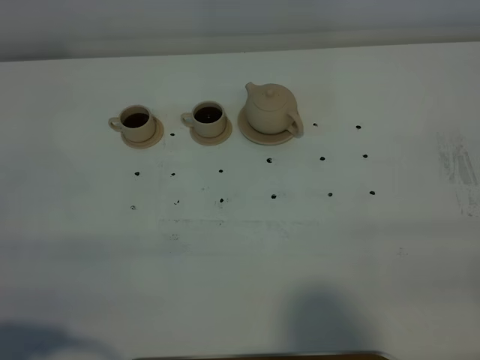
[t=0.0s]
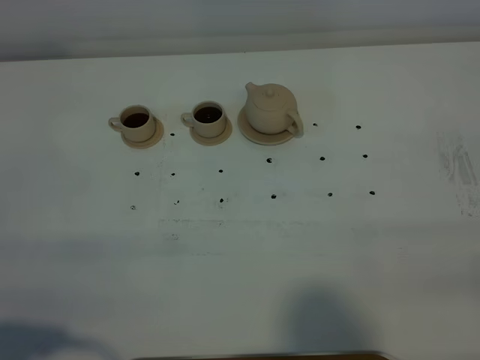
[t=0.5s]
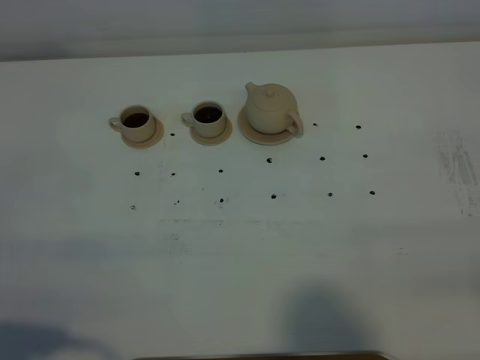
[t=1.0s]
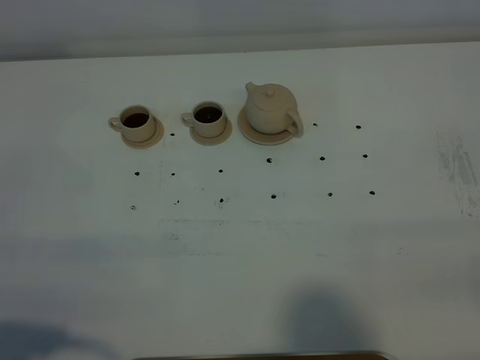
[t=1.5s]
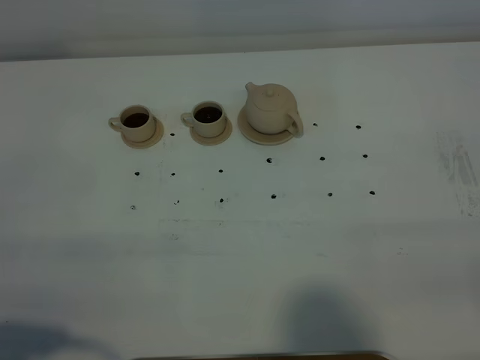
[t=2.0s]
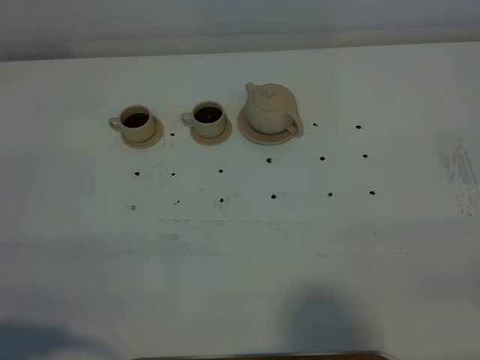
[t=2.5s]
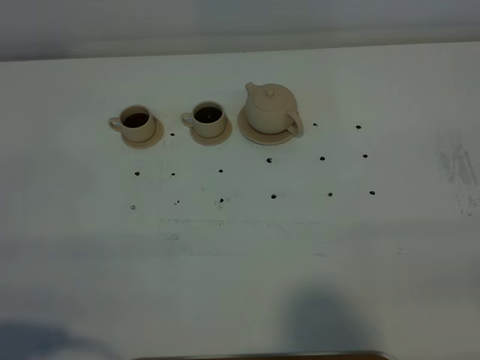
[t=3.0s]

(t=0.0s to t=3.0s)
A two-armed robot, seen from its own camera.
Task of the whole recording: grasp the brown teapot and pour the tea into the two brown teacups one by one, put the brown teapot back in its original place.
t=1.5s - t=3.0s: Both grippers stay put.

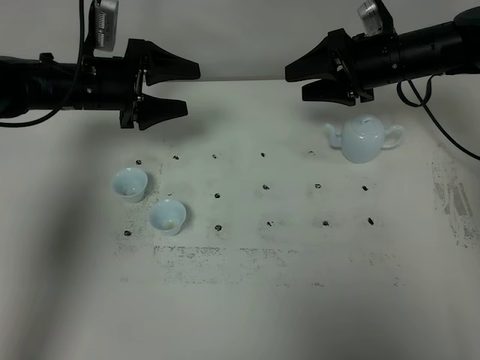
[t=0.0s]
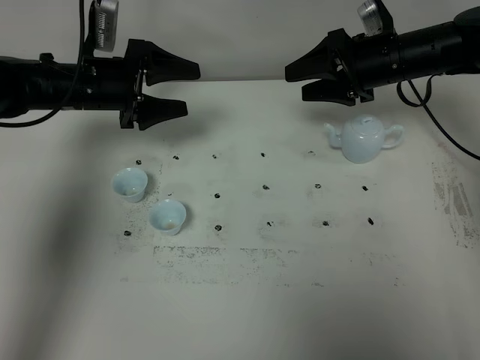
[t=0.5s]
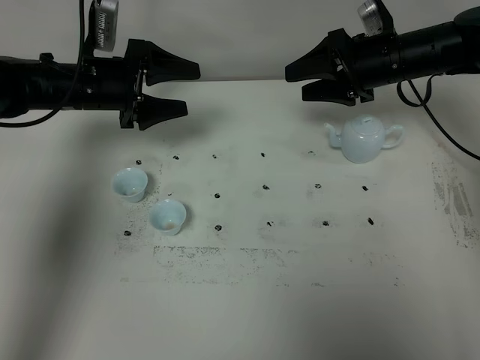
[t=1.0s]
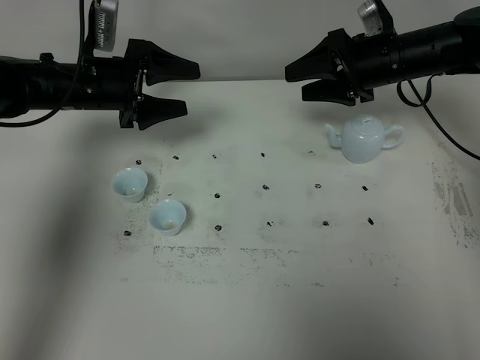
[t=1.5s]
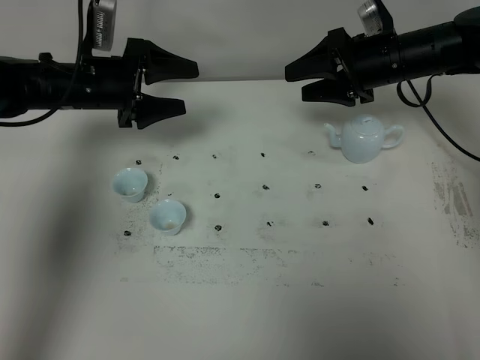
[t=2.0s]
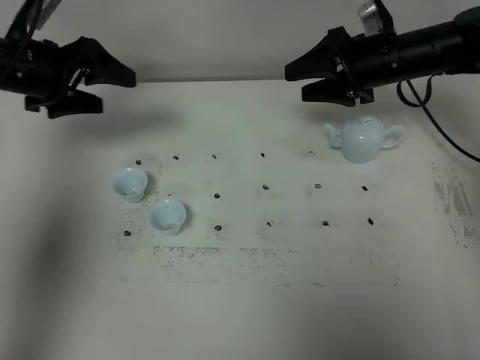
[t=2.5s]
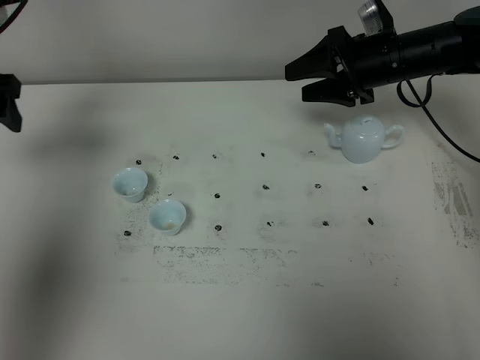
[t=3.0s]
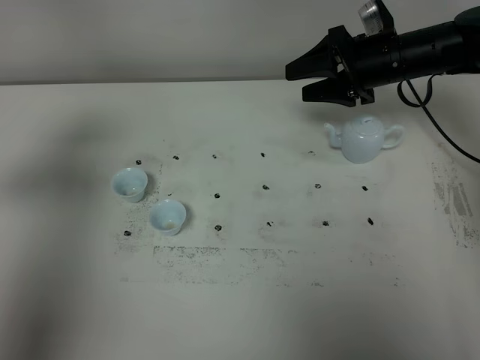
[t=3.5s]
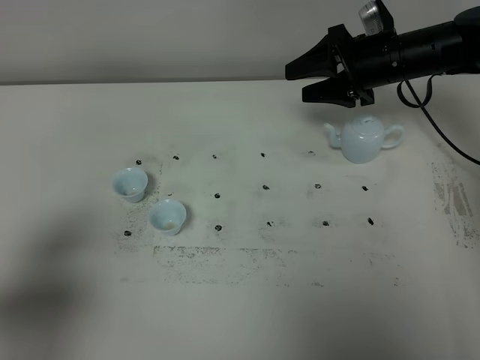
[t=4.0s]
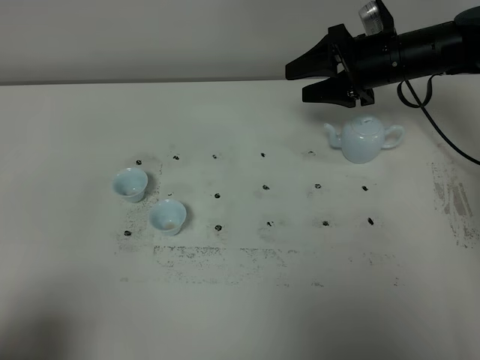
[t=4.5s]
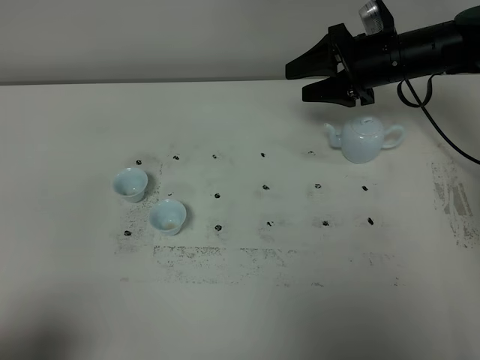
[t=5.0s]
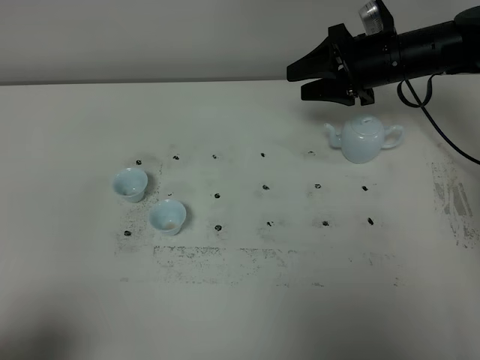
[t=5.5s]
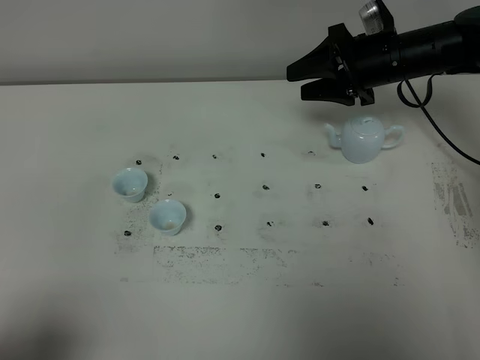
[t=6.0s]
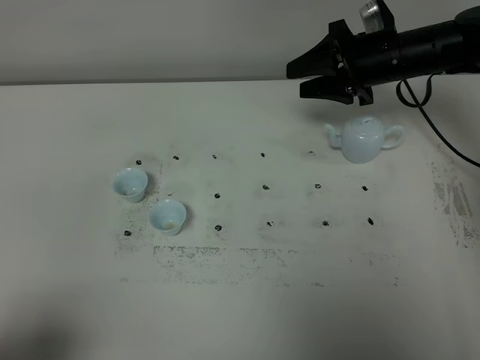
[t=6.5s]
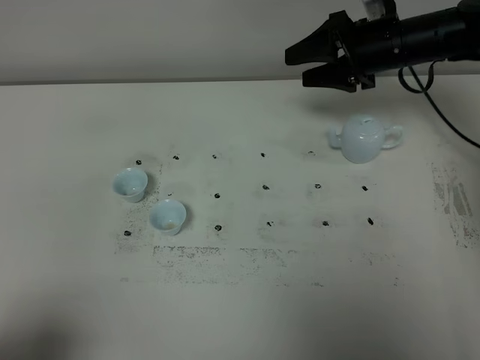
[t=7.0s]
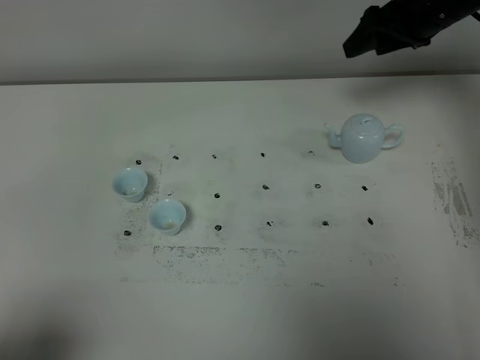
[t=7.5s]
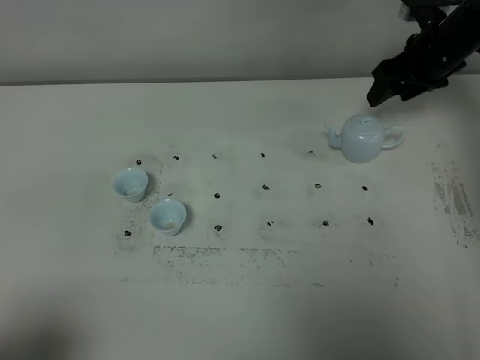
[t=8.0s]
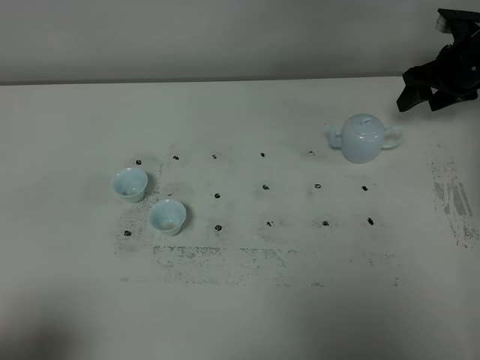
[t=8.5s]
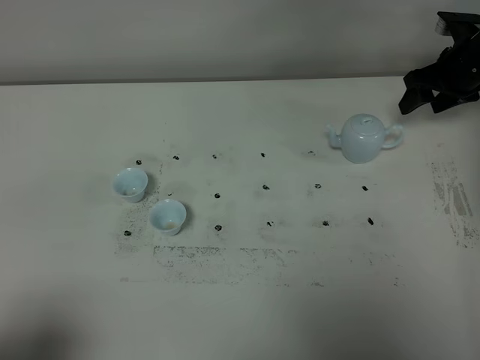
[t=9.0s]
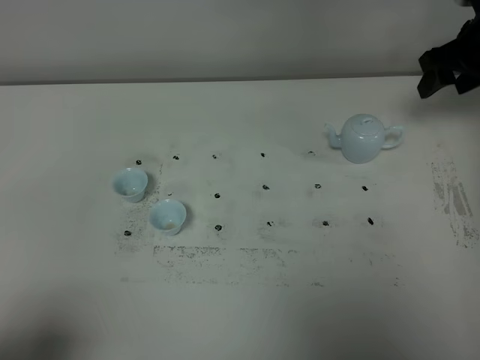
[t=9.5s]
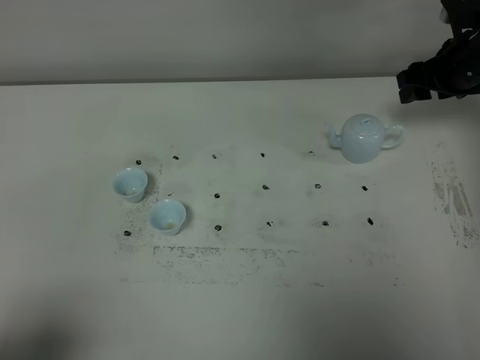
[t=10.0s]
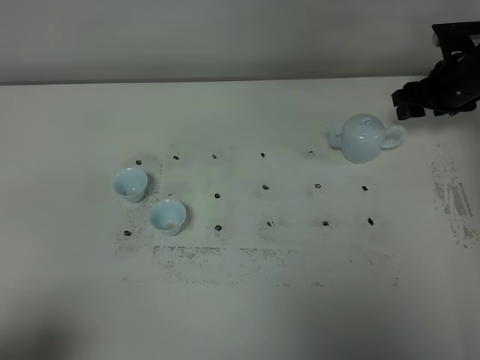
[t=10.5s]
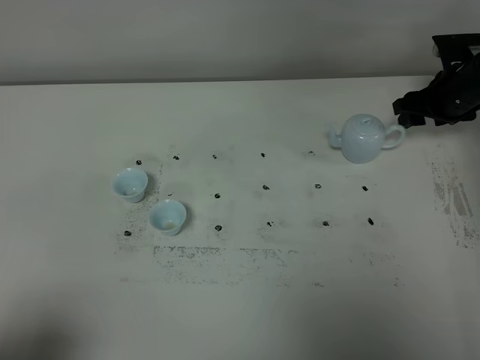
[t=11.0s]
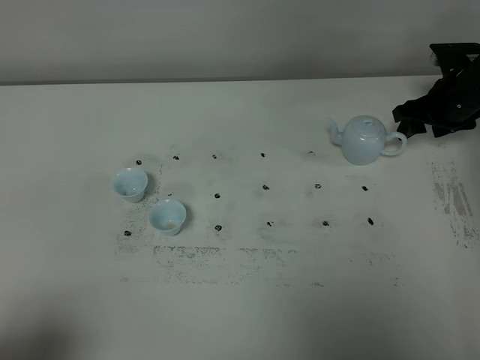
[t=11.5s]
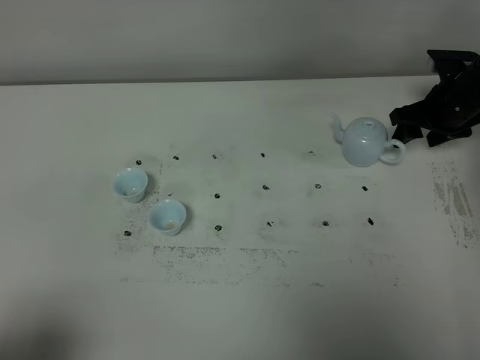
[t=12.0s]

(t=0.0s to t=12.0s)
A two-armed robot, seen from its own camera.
Task of the whole recording: grasp the blue porcelain teapot and pour the tea into the two blue porcelain teacups one by one, put the blue porcelain teapot back in its original place.
t=0.0s - t=2.0s: Neither gripper changes place.
t=2.0s - t=4.0s: The left gripper is displaced backward by about 35 cm.
t=4.0s - t=6.0s: The left gripper is displaced backward by some 10 cm.
t=6.0s - t=8.0s: The right gripper moves to the right, approximately 10 cm.
t=10.0s - t=12.0s: The right gripper goes about 5 cm downward.

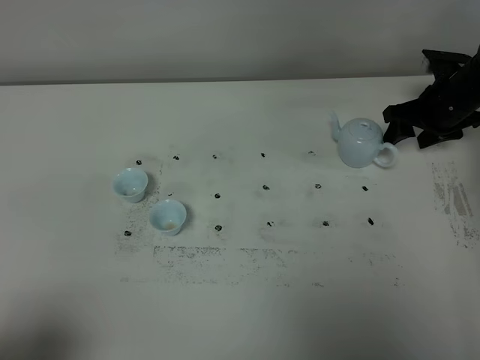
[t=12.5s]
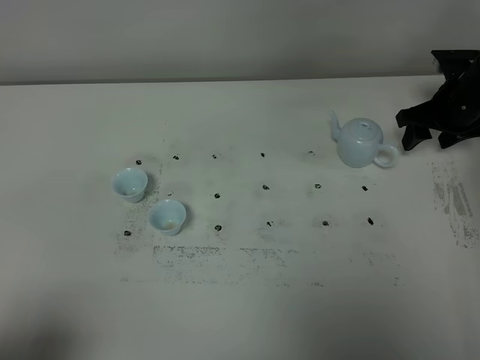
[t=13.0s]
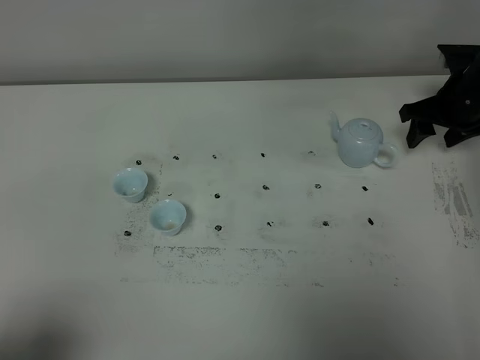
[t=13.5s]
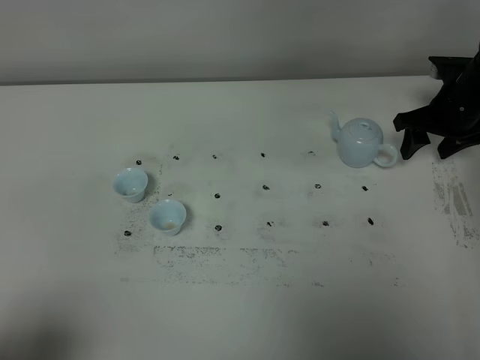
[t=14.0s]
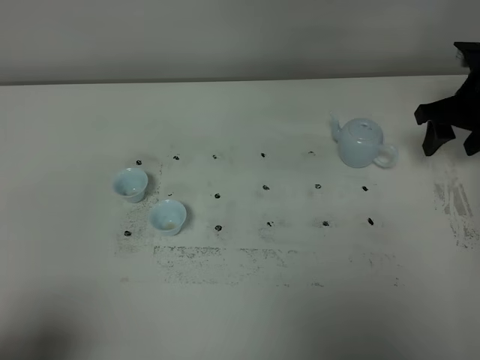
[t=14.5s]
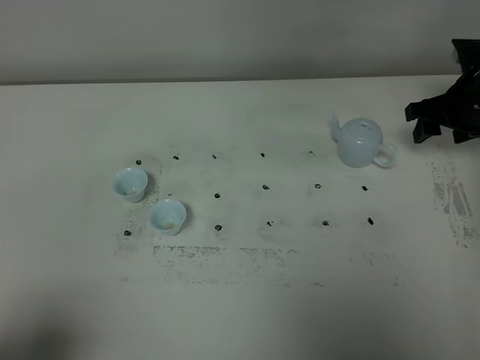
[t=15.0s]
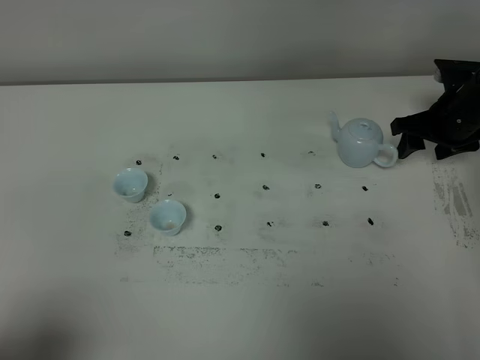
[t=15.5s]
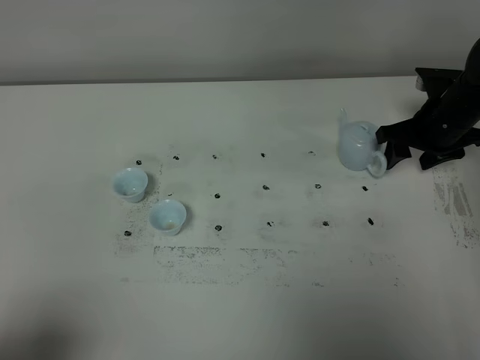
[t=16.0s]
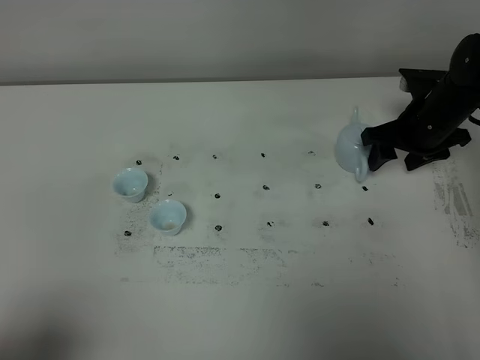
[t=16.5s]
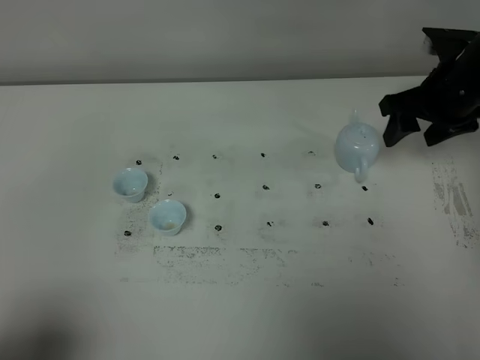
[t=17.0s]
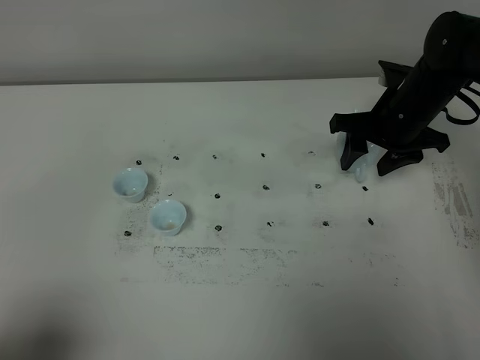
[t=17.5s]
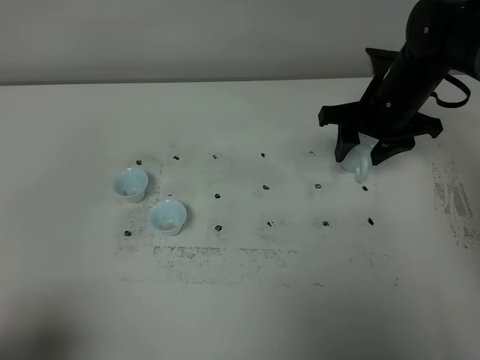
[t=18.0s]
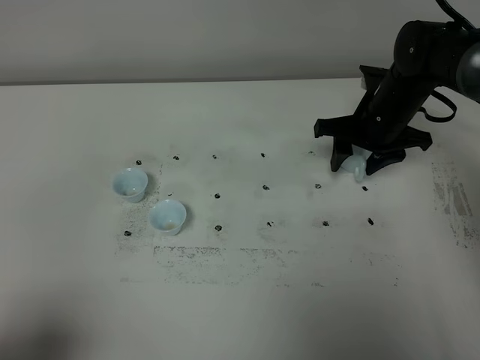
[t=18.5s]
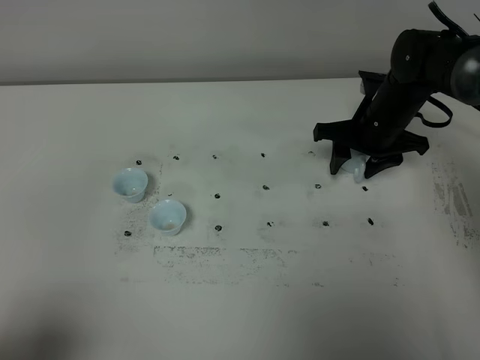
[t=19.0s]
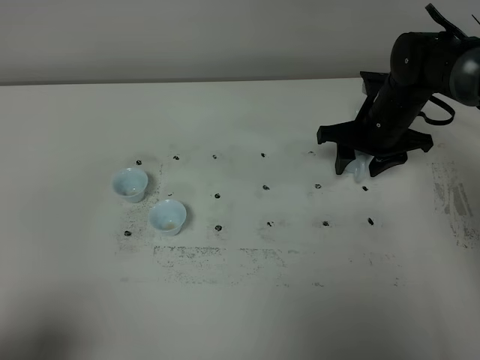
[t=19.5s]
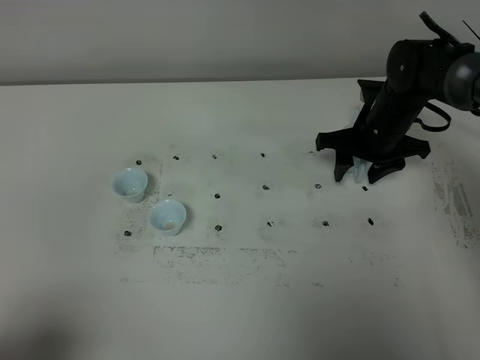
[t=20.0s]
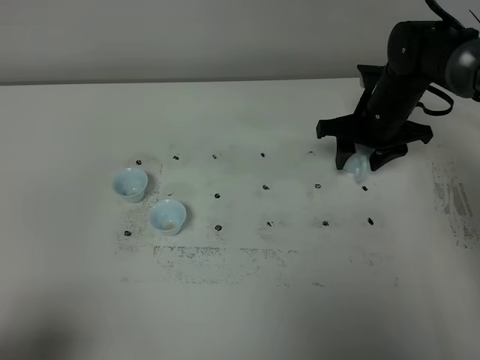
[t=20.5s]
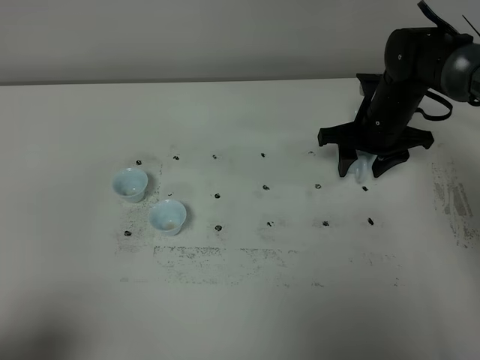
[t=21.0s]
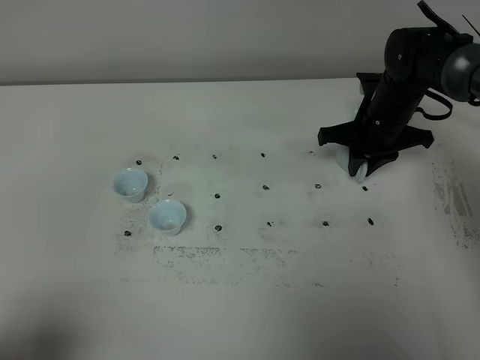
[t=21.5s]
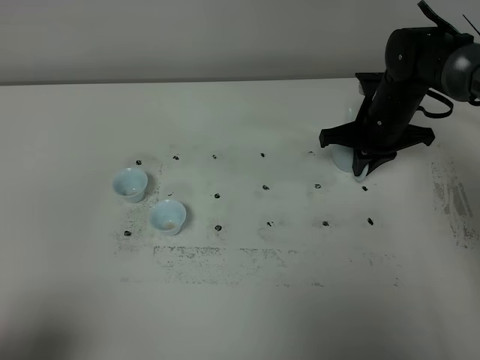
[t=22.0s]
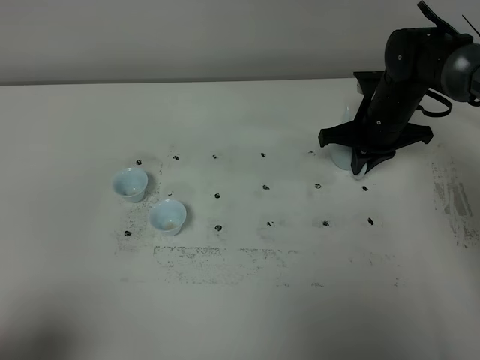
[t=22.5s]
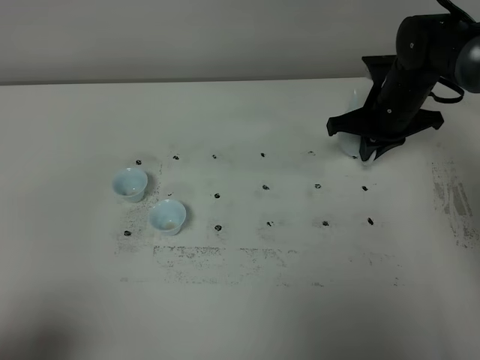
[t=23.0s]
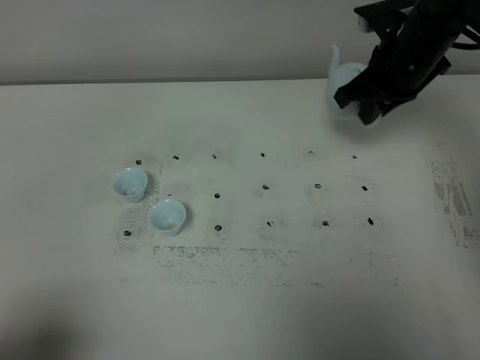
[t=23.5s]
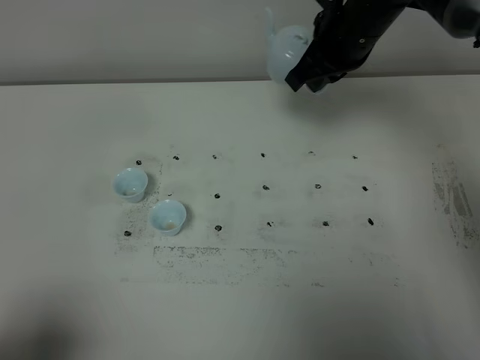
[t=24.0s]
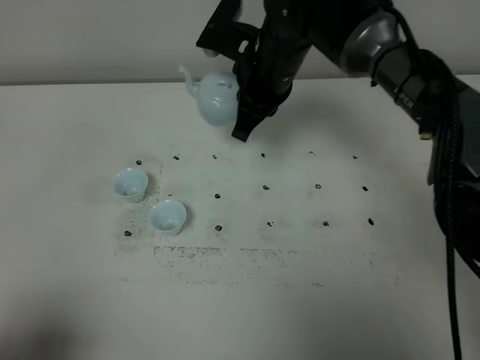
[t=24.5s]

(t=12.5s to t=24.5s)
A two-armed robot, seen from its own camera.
Task of the whole recording: grasp the blue porcelain teapot and pour the tea into the two blue porcelain teacups one by one, put the blue porcelain teapot back in its original place.
Step, t=12.5s - t=23.0s: Pick up the teapot with the right gripper.
t=12.5s - t=14.5s: The right gripper heads upward and backward, covering some 10 cm.
t=14.5s - t=16.5s: The right gripper is displaced downward by some 5 cm.
t=16.5s - t=18.5s: The right gripper is displaced to the left by approximately 5 cm, and reaches roughly 10 cm upward, then returns.
t=18.5s - t=20.5s: The grippers make only small movements.
t=20.5s - t=22.5s: The right gripper closes up.
t=22.5s - t=24.5s: The right gripper travels to the left and upward by about 20 cm.
